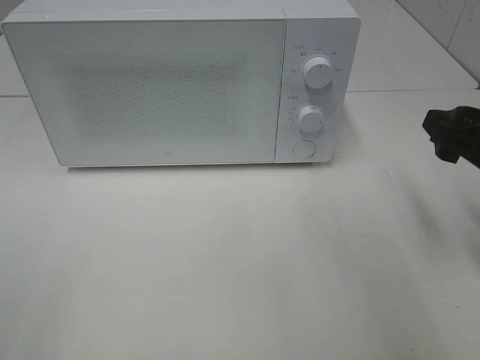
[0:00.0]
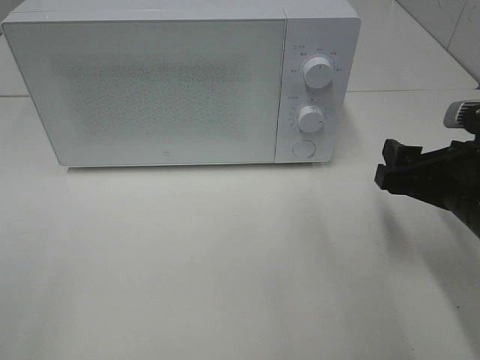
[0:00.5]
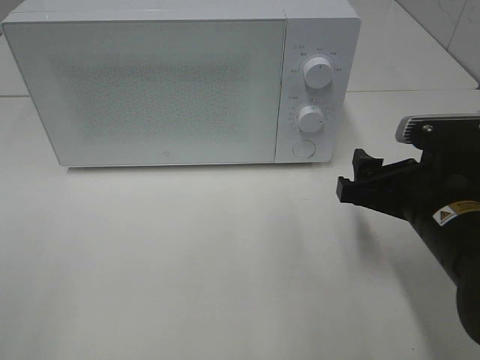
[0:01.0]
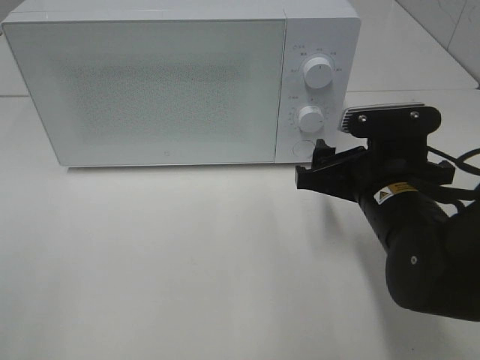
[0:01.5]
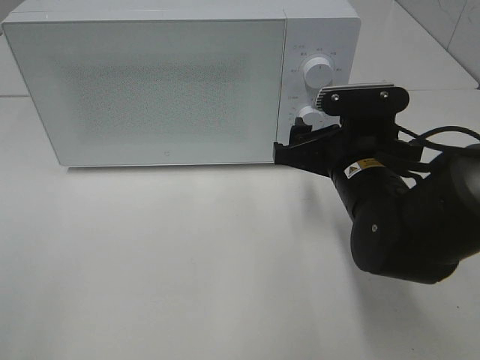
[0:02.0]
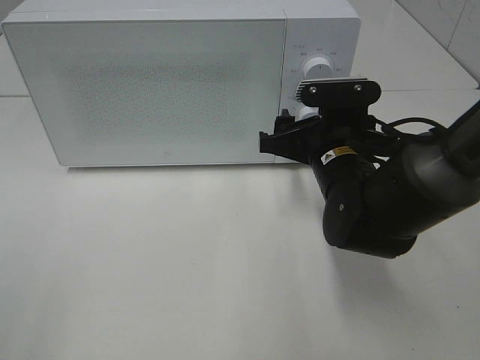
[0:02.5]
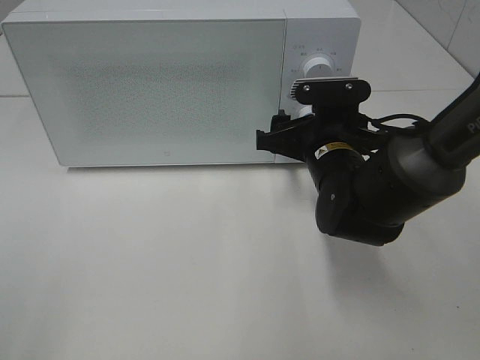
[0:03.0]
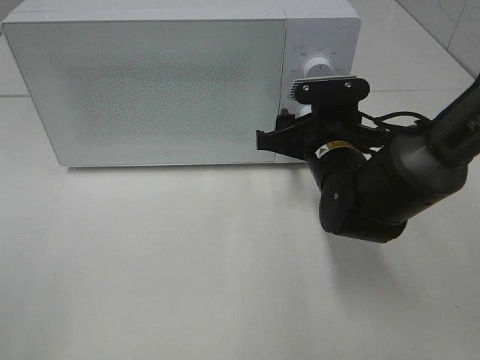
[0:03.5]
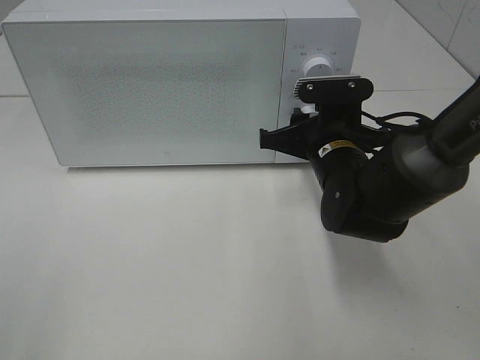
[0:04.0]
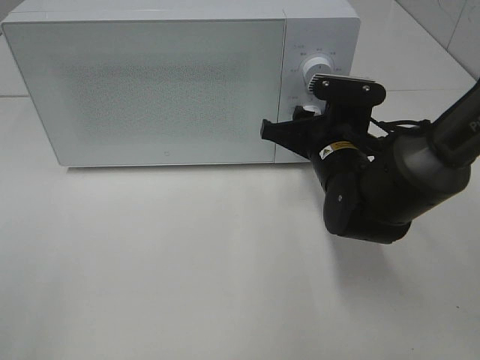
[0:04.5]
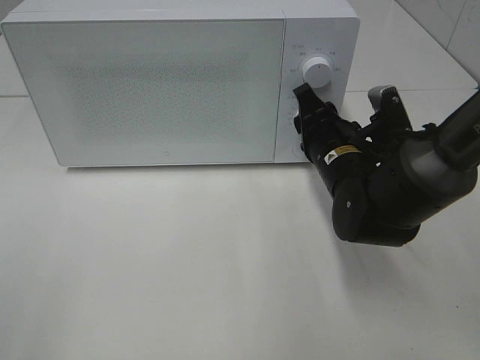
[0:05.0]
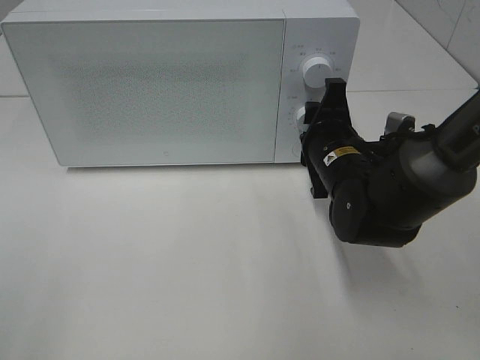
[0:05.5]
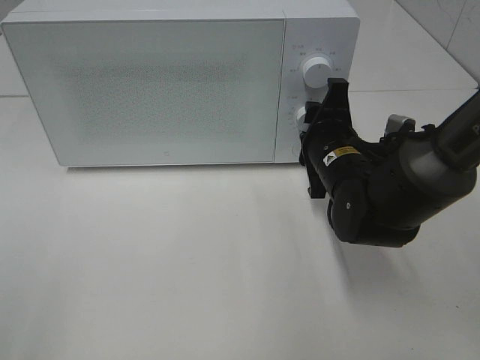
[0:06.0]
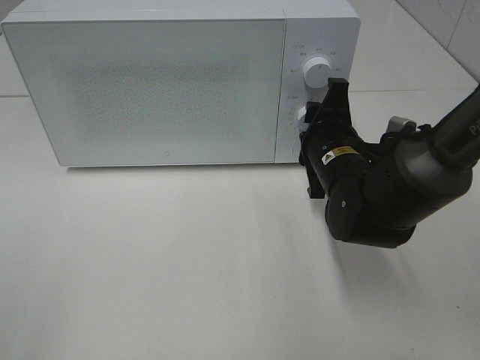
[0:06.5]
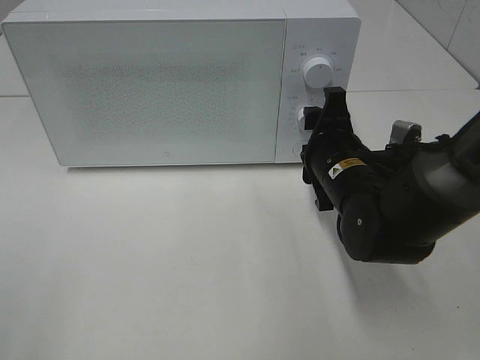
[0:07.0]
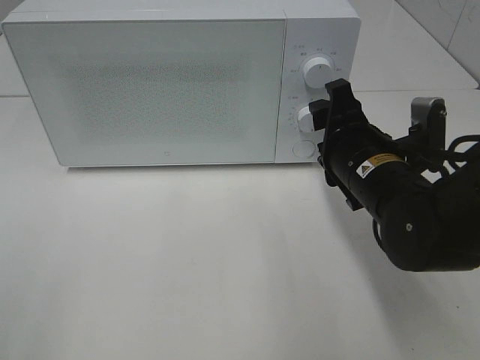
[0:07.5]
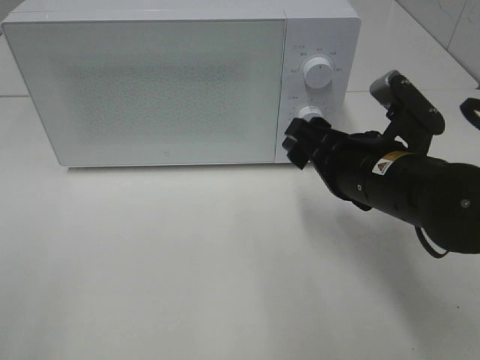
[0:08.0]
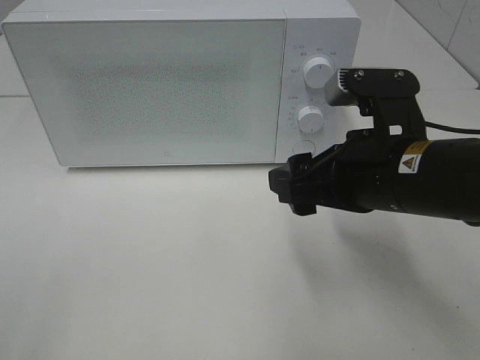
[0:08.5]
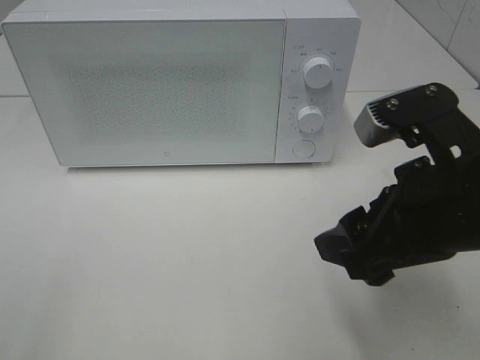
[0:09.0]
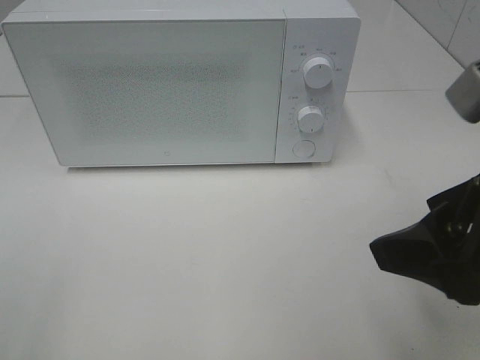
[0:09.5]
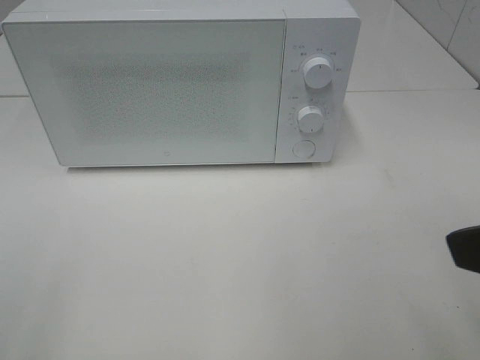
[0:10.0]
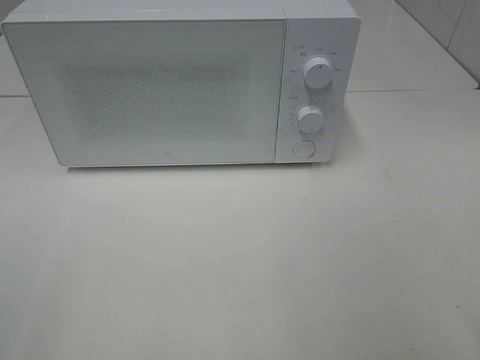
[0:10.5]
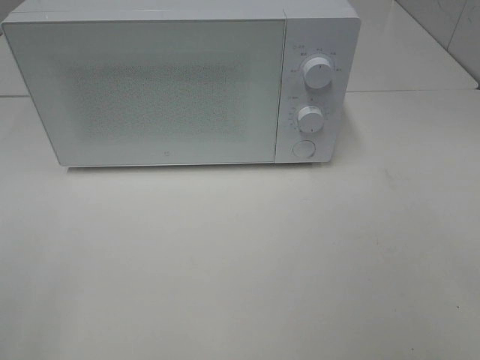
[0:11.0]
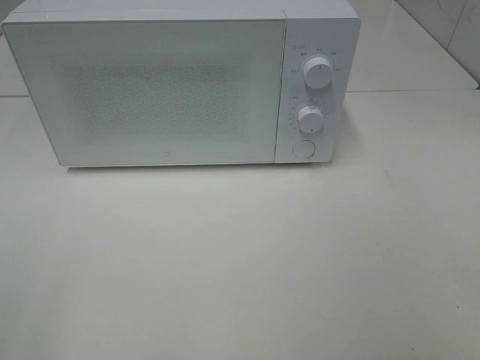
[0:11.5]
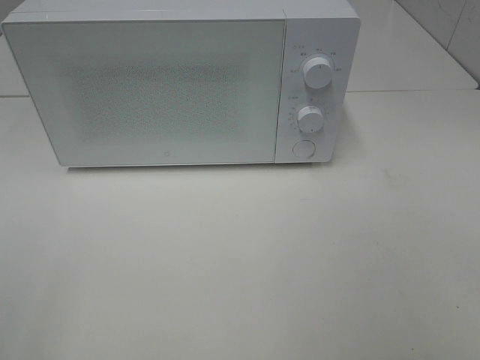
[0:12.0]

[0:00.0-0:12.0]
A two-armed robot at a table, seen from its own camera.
Task of the whole recording: Heat the burger.
Step, 0:00.0 to 0:06.5: Right hand: twist timer button.
0:00.0 to 0:02.0: The right gripper moves to the left, roughly 15 cm.
0:02.0 to 0:04.0: The right gripper is displaced forward by roughly 5 cm, and closes up.
0:06.0 to 0:08.0: The right gripper shifts roughly 5 cm backward, and opens its fingers.
0:08.0 to 0:10.0: The right gripper moves backward, upward and to the right, some 20 cm.
0:10.0 to 0:12.0: The right gripper is displaced backward and to the right by approximately 10 cm.

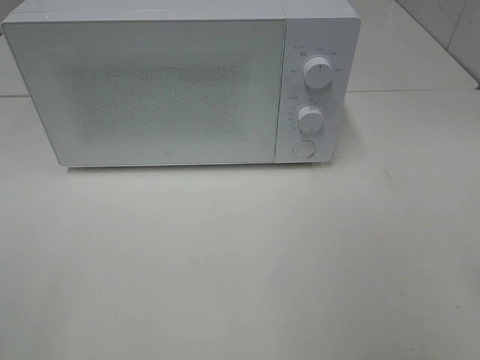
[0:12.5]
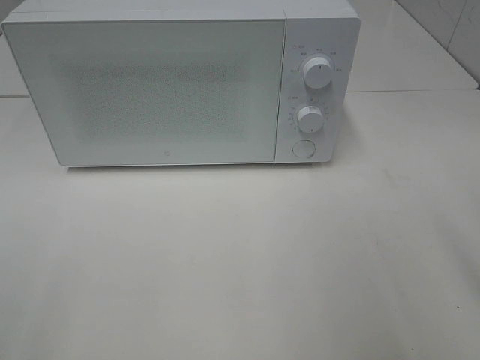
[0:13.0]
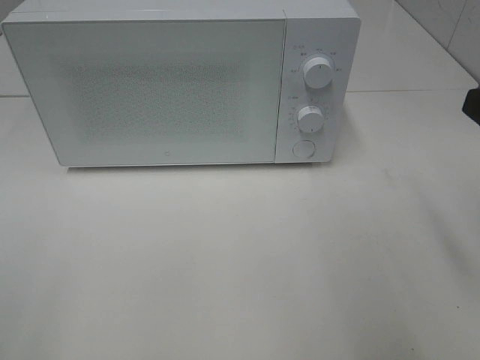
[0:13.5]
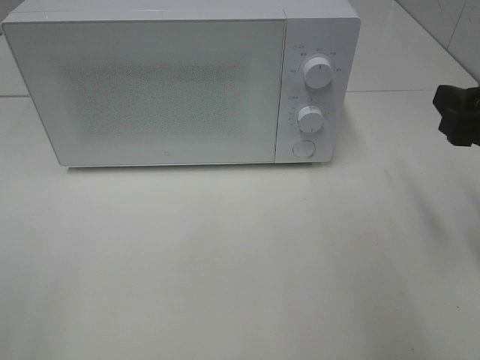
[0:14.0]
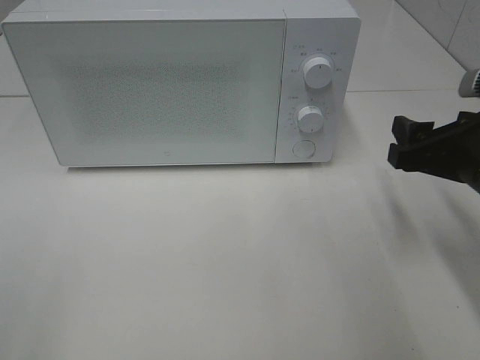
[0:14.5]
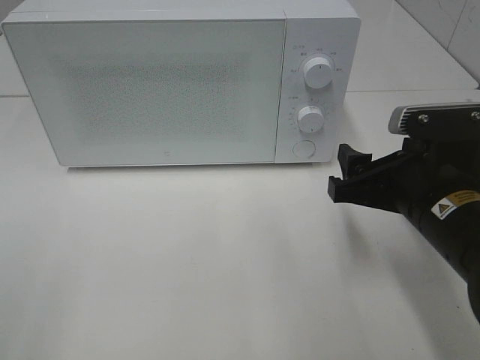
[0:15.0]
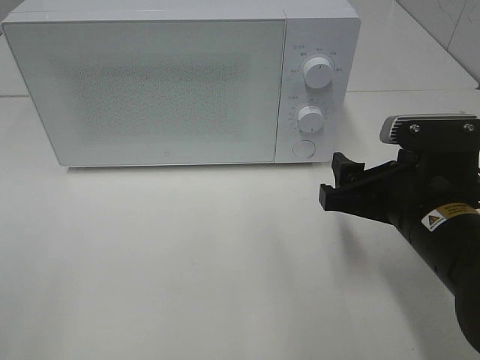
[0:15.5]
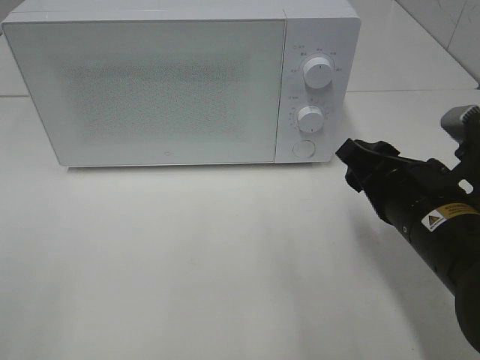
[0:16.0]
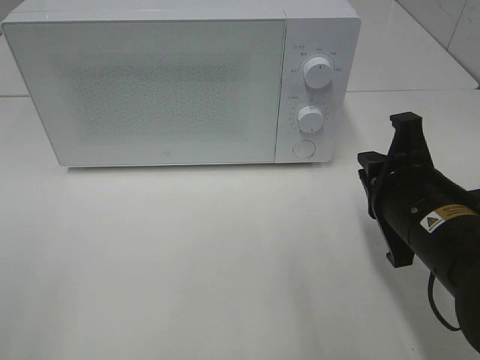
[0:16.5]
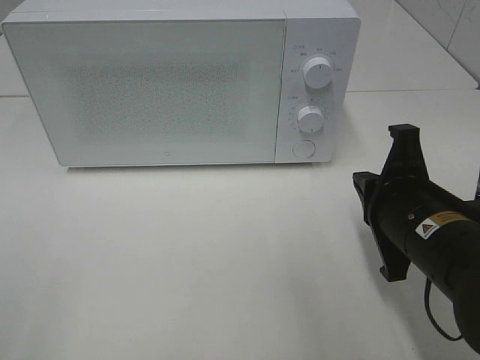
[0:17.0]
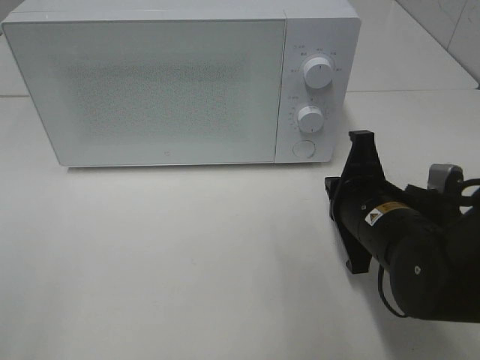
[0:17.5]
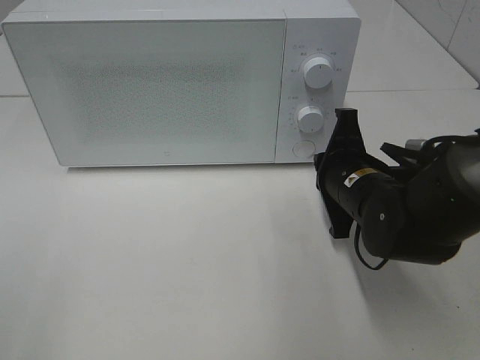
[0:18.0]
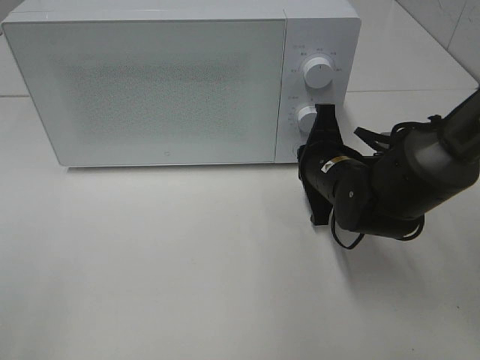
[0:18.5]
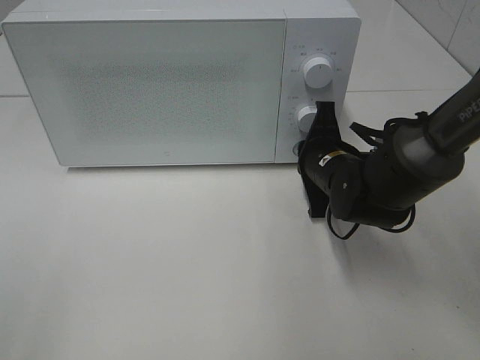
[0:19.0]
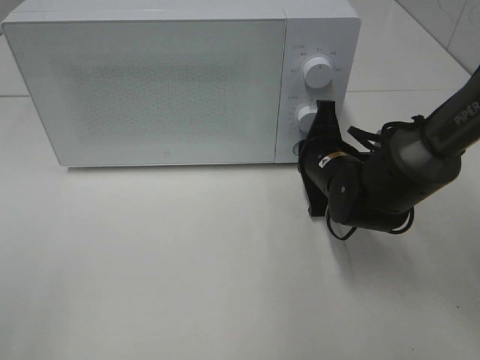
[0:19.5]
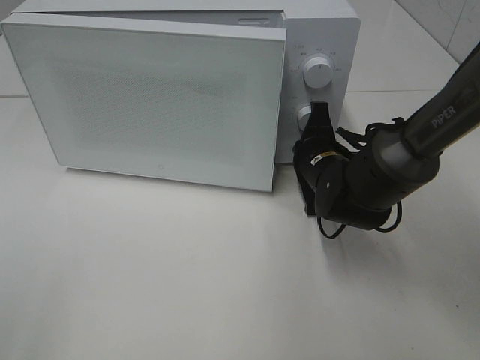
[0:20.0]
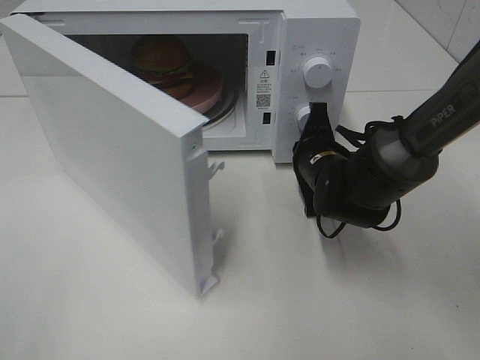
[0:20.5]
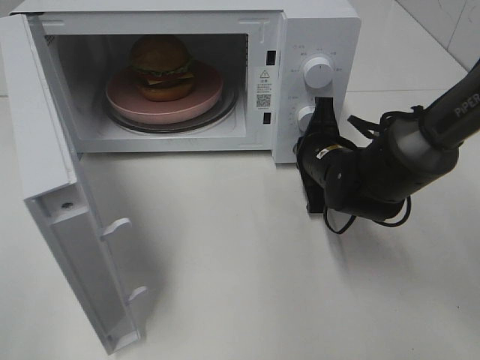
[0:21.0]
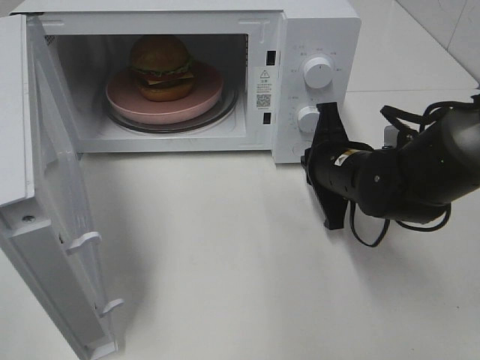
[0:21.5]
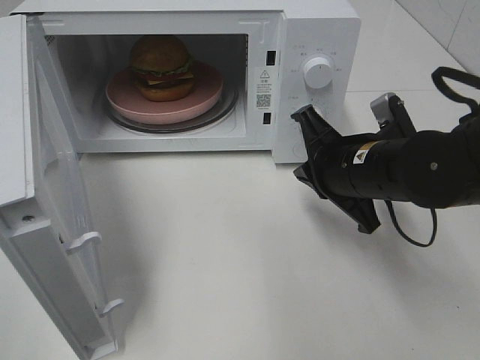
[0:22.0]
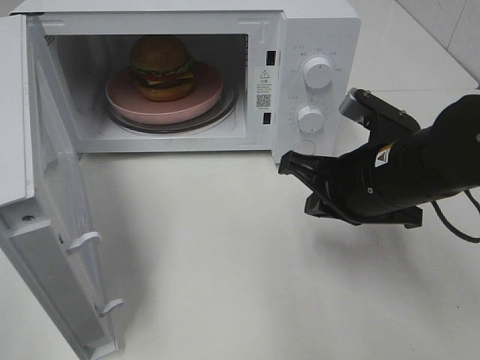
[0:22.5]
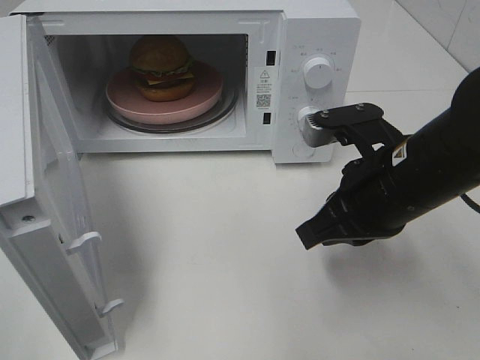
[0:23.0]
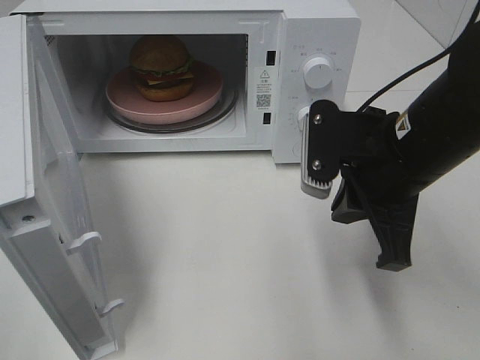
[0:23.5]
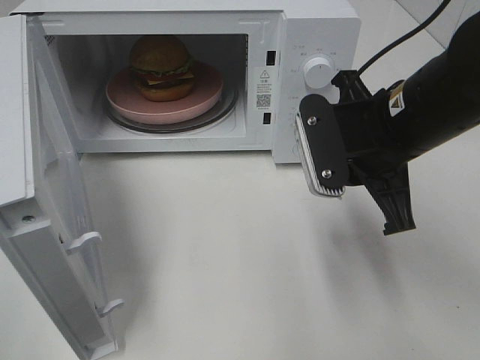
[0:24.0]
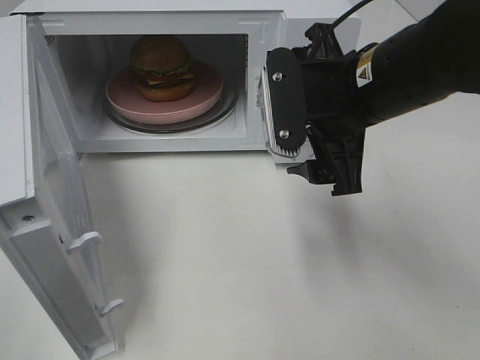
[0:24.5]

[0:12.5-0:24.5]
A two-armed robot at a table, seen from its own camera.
Task of the whole recording: Heat the burger.
Step, 0:12.5 to 0:21.0: Right hand: press the switch.
0:12.5 to 0:14.5: The right gripper travels forward and downward by some 20 cm.
0:14.5 to 0:16.5: The right gripper travels to the left by about 5 cm, and closes.
0:16.5 to 0:18.5: The right gripper heads forward and downward, covering roughly 15 cm.
0:20.5 to 0:22.5: The right gripper heads backward and upward, covering approximately 15 cm.
0:22.5 to 0:24.5: The right gripper shifts approximately 10 cm upward, and opens up.

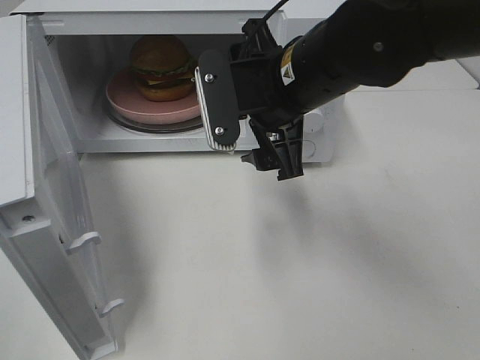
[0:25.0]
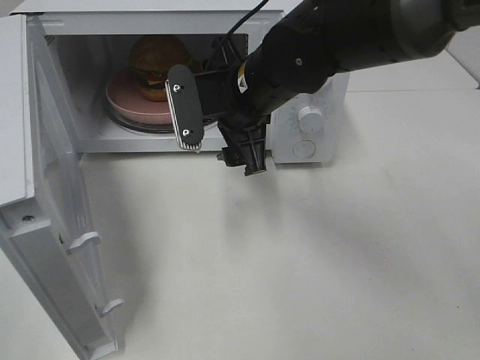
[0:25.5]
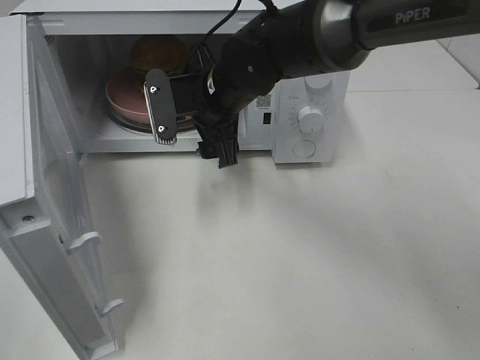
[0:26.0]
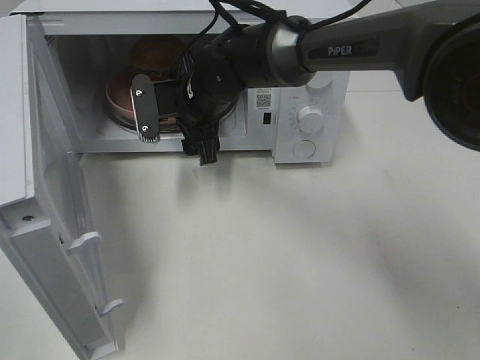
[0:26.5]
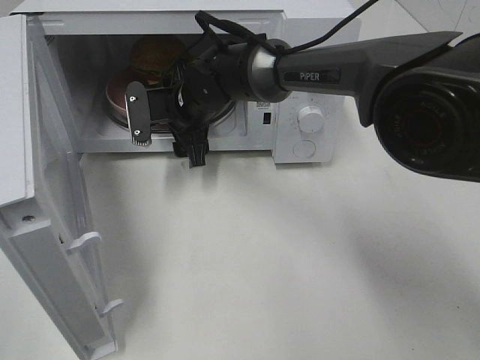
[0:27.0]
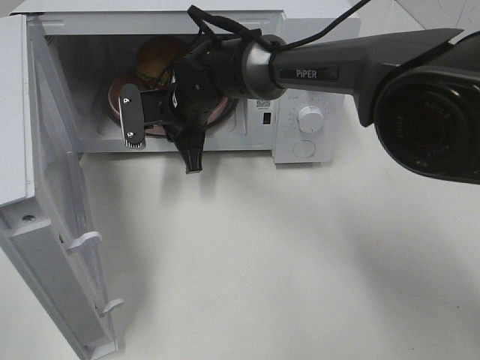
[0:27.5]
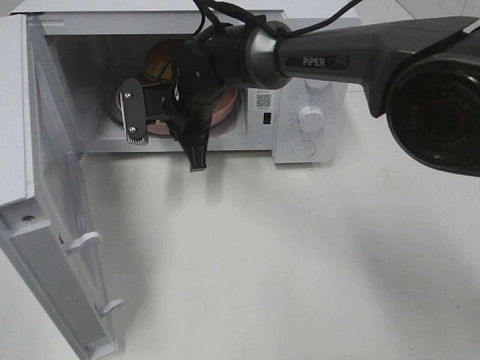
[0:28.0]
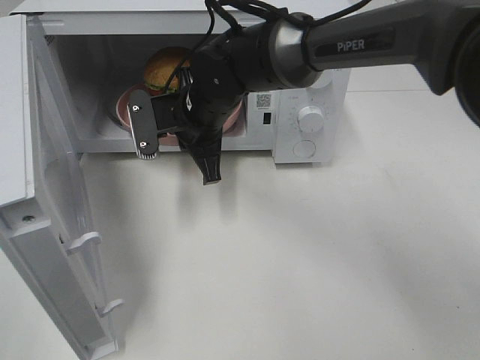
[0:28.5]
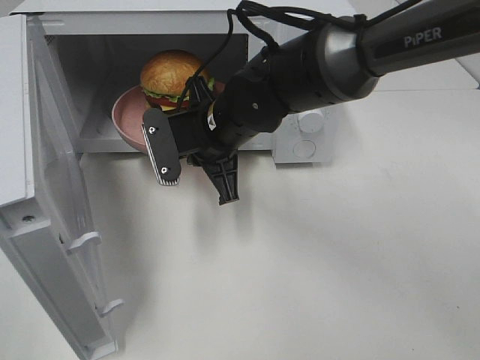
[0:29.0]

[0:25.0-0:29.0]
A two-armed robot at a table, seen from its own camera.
Task of the whole recording: Heat the burger.
Step, 0:25.0 to 0:27.5: Right hand: grab the plate with the hamburger.
0:25.0 to 0:27.0: The right gripper moves forward, downward and to the left, about 20 cm.
0:27.0 to 0:29.0: The right gripper goes approximately 10 cm backward, and closes its fingers.
